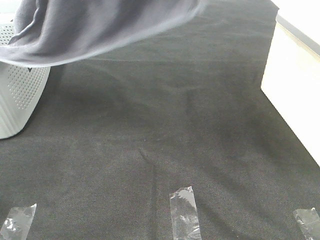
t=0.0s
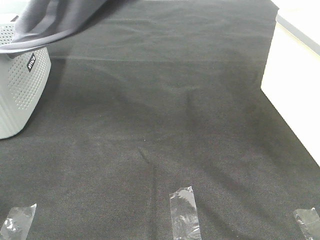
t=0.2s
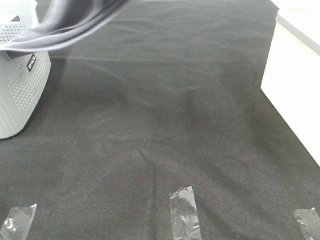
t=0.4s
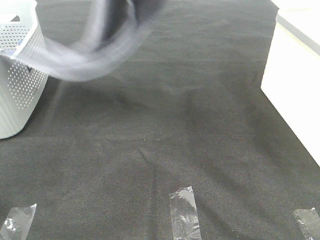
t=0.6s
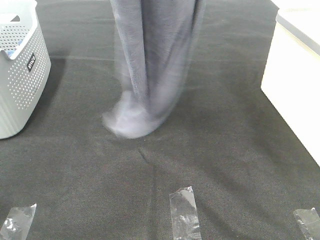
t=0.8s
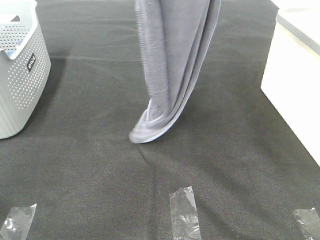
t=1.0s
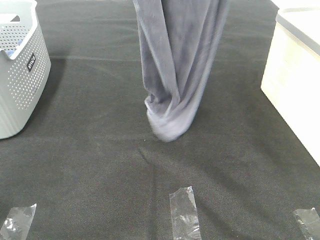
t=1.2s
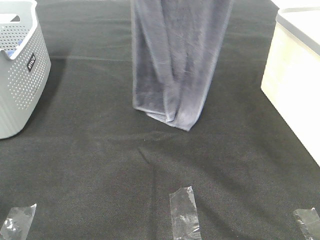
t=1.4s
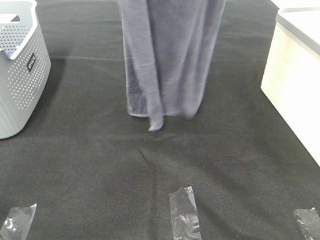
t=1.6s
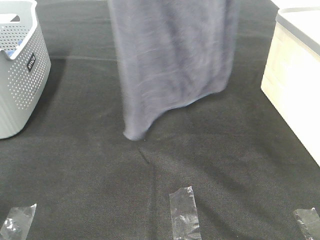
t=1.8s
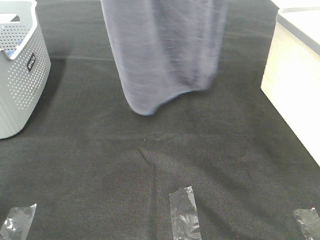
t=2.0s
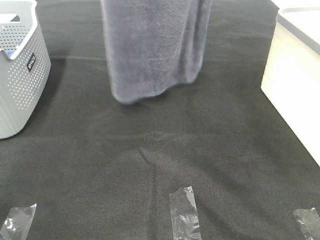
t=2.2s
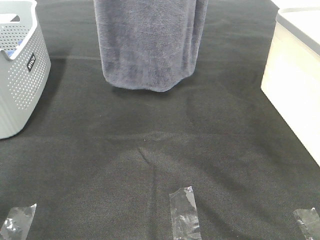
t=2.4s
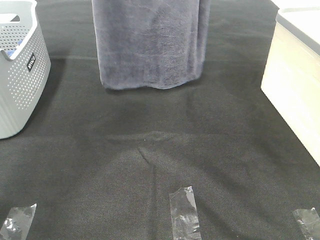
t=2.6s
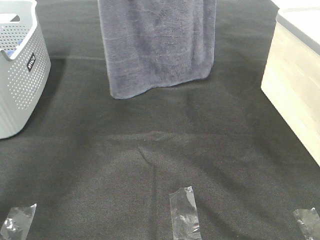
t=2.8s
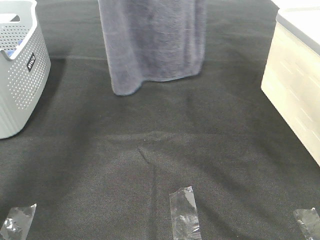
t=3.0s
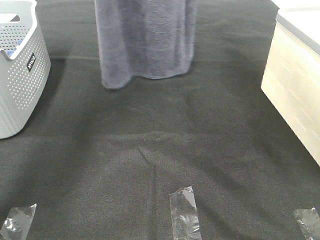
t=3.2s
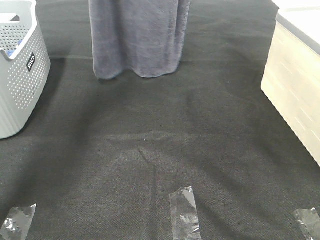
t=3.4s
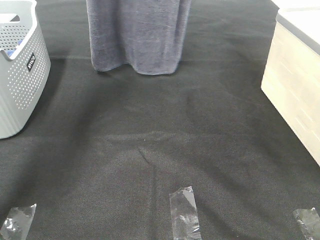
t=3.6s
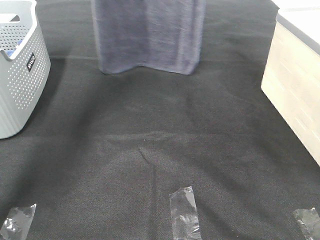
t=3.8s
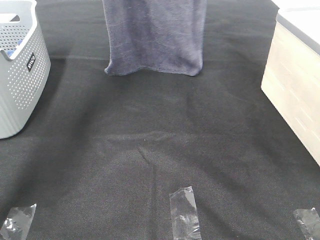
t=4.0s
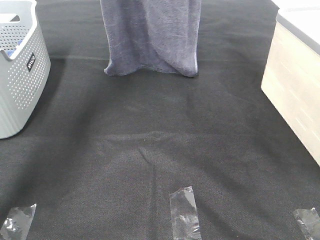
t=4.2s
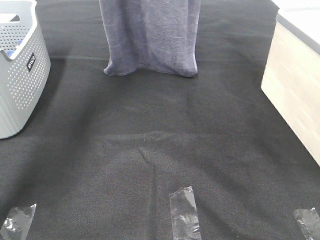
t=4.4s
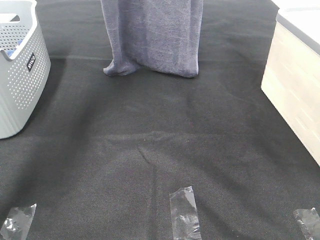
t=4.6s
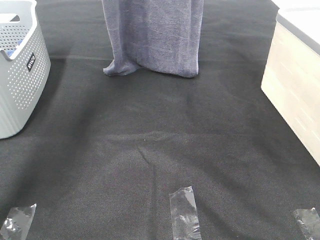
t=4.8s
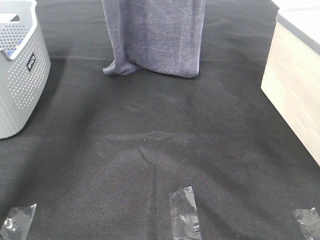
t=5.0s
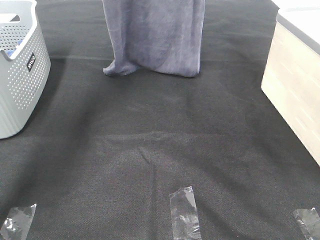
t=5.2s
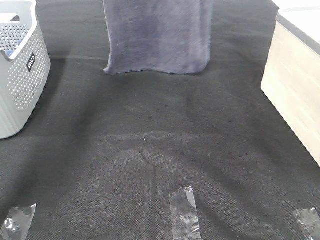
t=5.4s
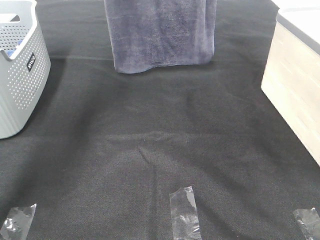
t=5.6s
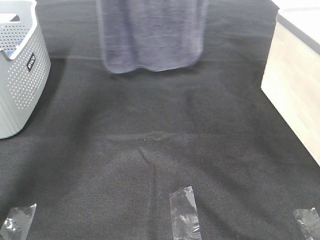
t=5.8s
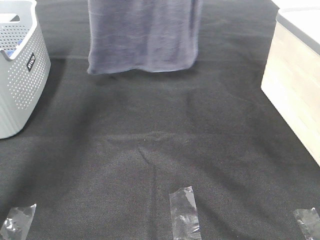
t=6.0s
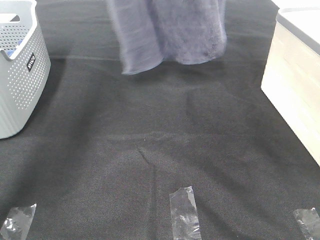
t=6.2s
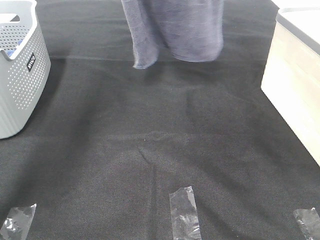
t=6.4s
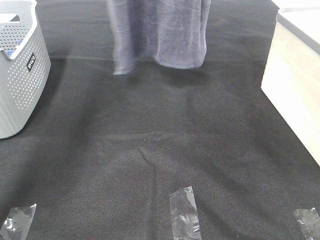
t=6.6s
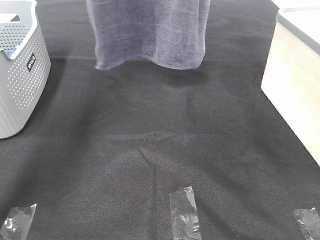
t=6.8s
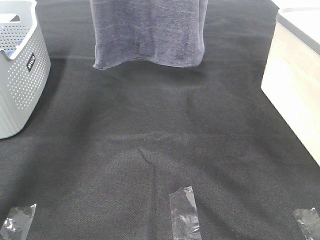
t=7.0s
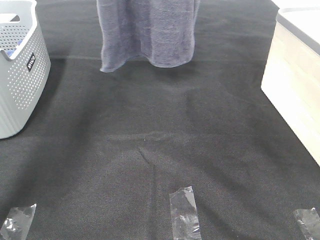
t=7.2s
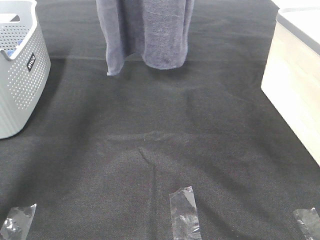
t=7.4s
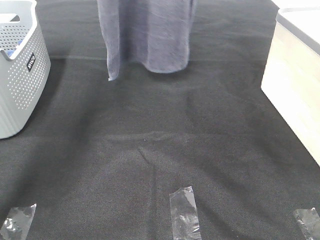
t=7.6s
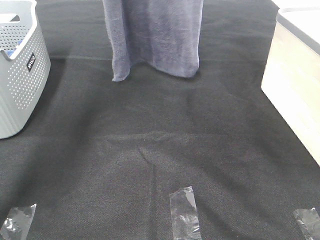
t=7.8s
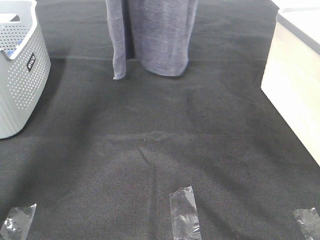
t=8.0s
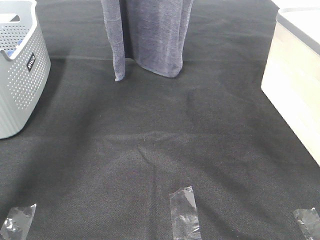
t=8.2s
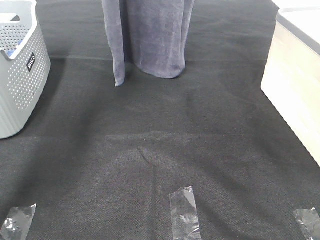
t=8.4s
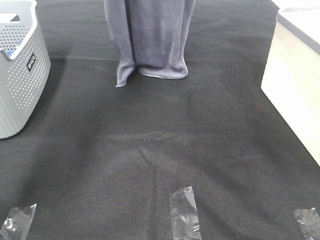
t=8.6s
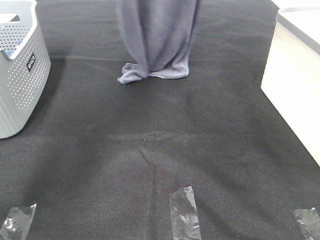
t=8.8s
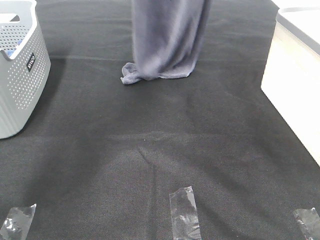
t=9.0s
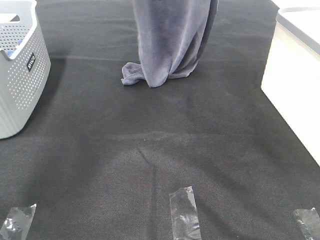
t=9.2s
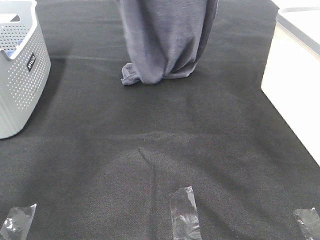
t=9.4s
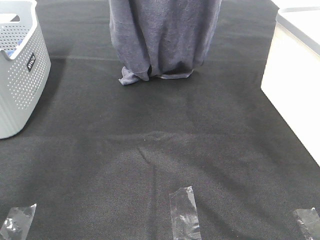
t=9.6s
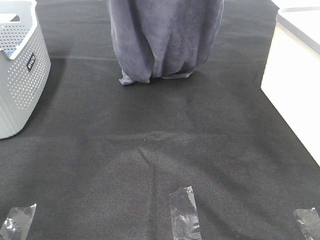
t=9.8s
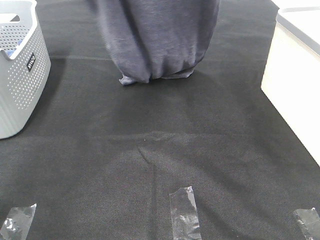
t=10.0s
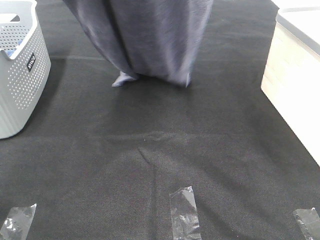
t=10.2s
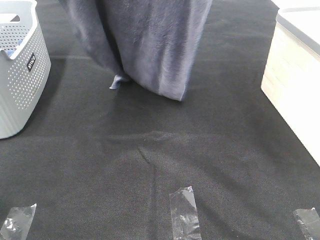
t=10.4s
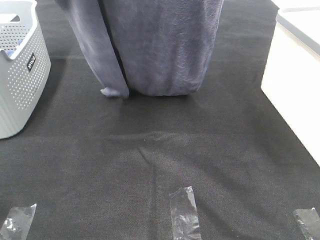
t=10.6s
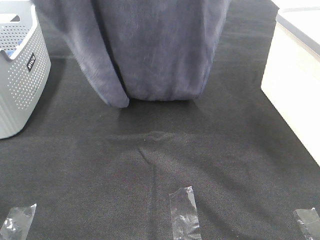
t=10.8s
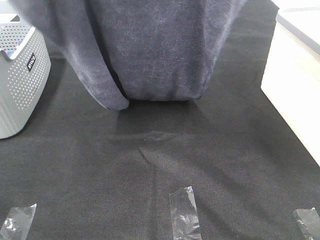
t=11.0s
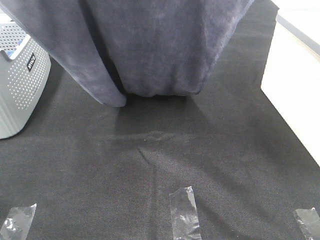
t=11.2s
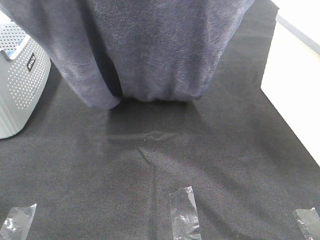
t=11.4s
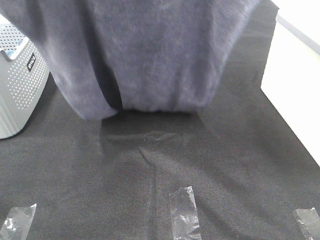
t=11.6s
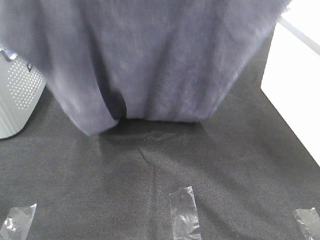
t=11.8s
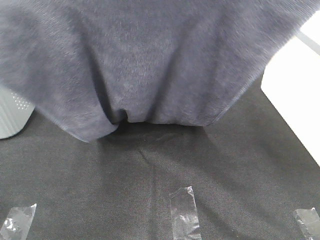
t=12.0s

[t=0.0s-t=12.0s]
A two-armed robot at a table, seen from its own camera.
Task of the whole recording: Remove the towel and place it.
Step, t=0.0s to t=3.2s: Right hand: grab a corner of the grey towel and straighten it.
Step, t=3.4s to t=10.8s: Left hand: spread the grey towel flat on the table.
Step, t=3.4s to t=10.8s: Right hand: spread the grey towel flat on the table.
t=0.0s to t=1.6s: The left gripper shifts some 5 cm forward. Meanwhile the right gripper goes some 15 cm upward.
t=1.6s to t=3.0s: The two grippers go some 15 cm forward and downward.
t=3.0s to t=4.4s: The left gripper heads forward, covering roughly 5 cm.
t=4.4s to t=6.0s: There are only small adjustments of the grippers.
t=6.0s to t=7.6s: The grippers make only small movements.
t=7.6s to t=9.0s: The left gripper moves downward and to the right, some 10 cm.
t=9.0s to t=10.4s: The right gripper shifts roughly 15 cm backward; the left gripper moves backward and upward, some 25 cm.
t=10.4s to t=12.0s: The right gripper goes some 10 cm backward, while the left gripper goes some 15 cm backward and downward.

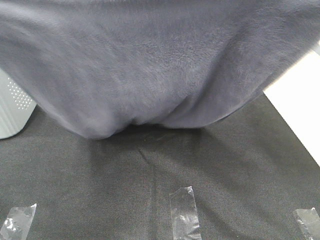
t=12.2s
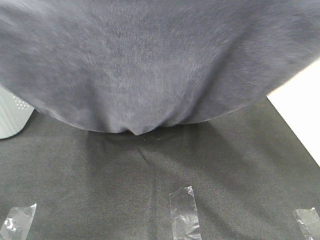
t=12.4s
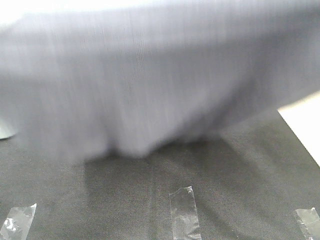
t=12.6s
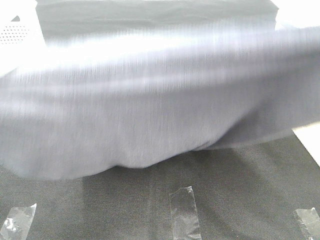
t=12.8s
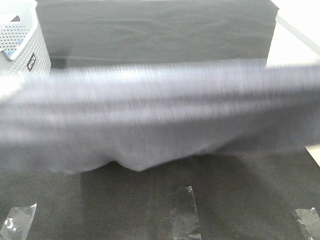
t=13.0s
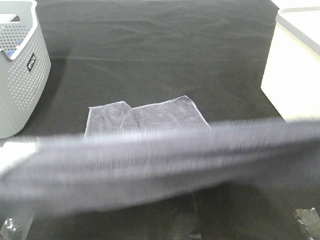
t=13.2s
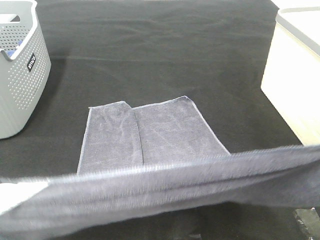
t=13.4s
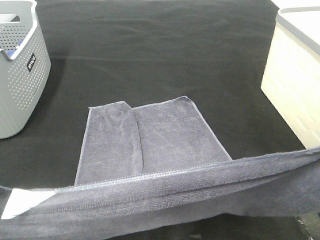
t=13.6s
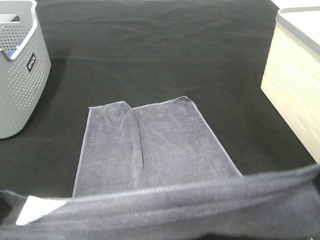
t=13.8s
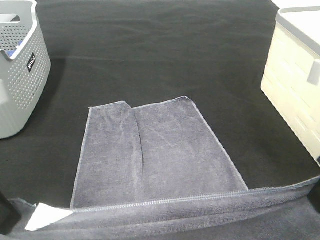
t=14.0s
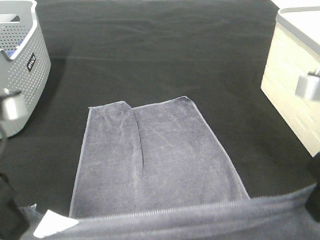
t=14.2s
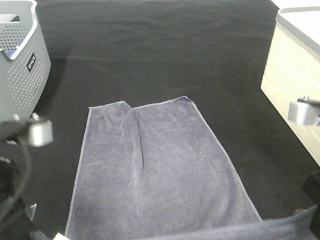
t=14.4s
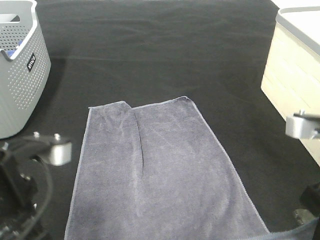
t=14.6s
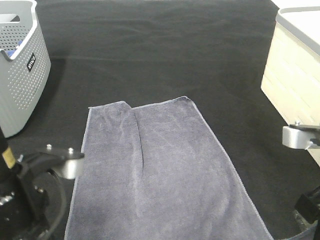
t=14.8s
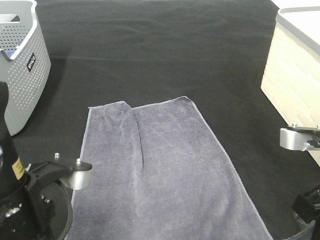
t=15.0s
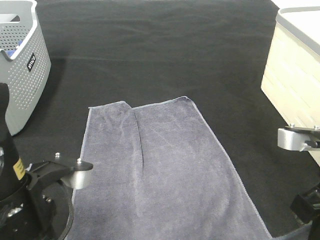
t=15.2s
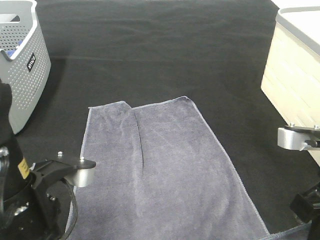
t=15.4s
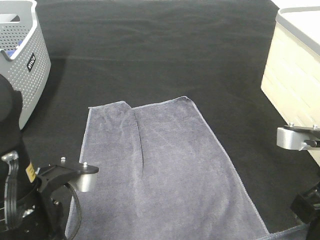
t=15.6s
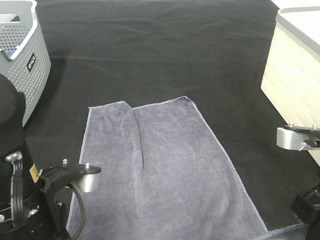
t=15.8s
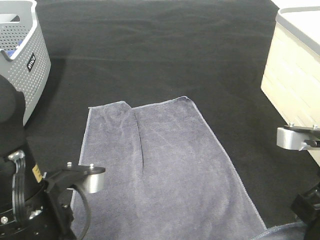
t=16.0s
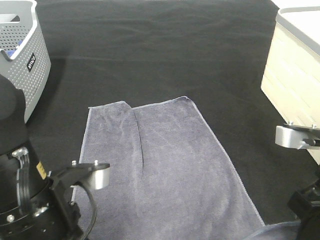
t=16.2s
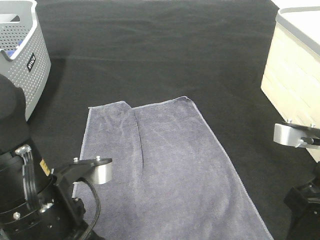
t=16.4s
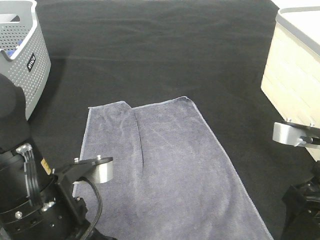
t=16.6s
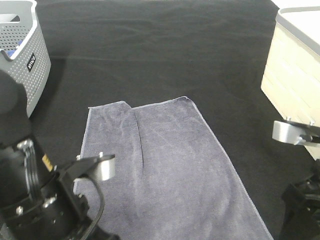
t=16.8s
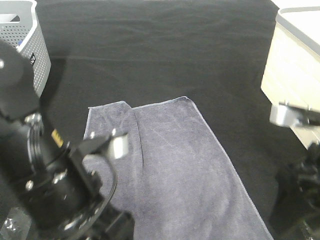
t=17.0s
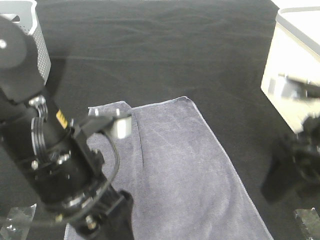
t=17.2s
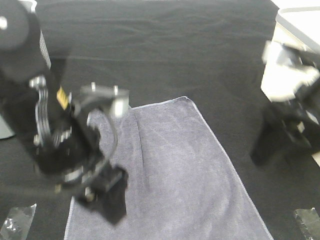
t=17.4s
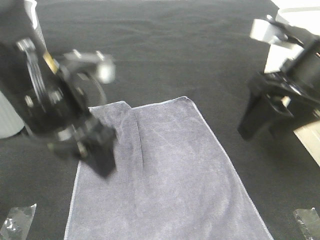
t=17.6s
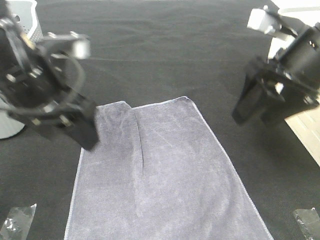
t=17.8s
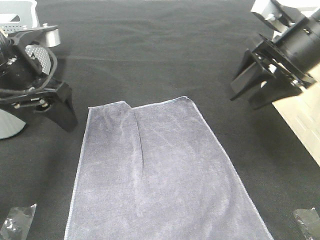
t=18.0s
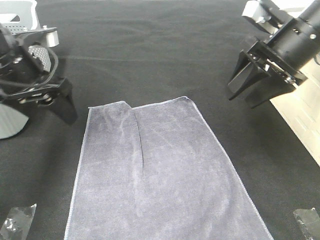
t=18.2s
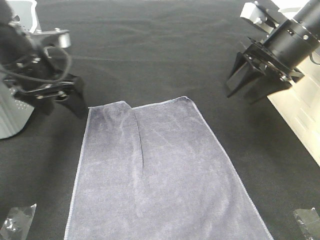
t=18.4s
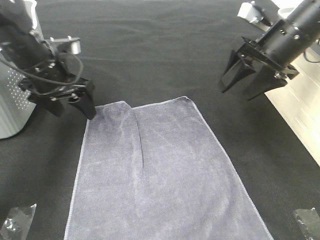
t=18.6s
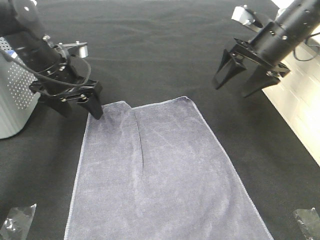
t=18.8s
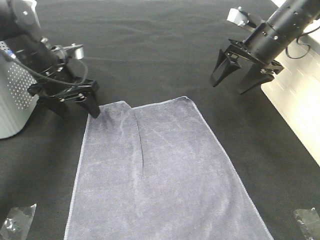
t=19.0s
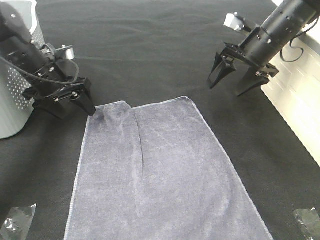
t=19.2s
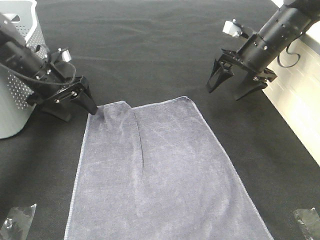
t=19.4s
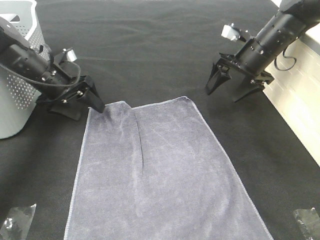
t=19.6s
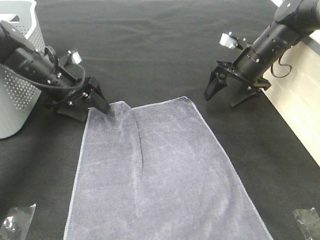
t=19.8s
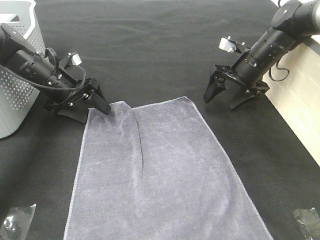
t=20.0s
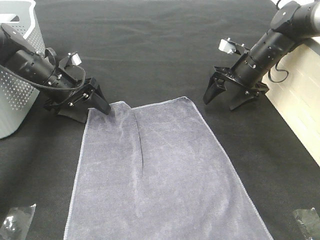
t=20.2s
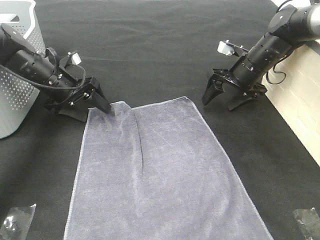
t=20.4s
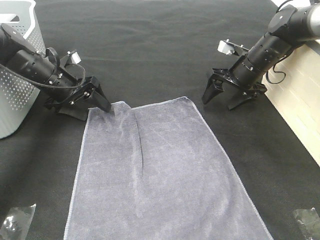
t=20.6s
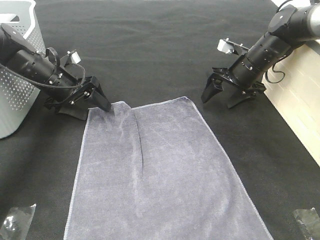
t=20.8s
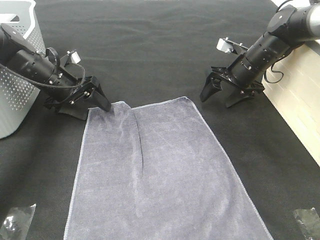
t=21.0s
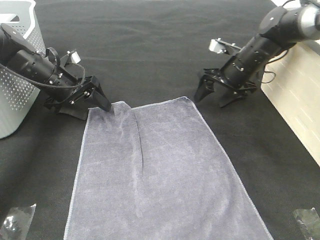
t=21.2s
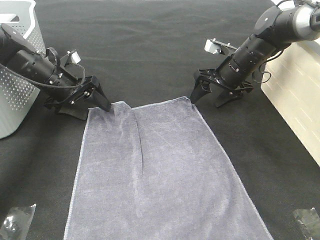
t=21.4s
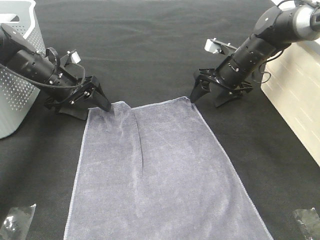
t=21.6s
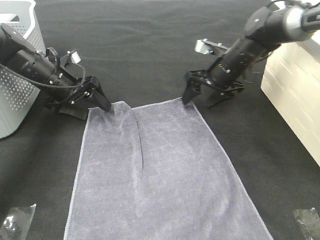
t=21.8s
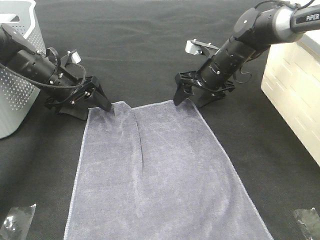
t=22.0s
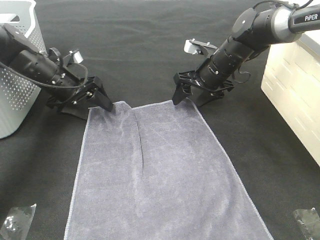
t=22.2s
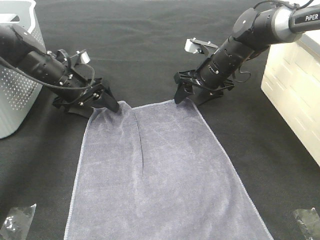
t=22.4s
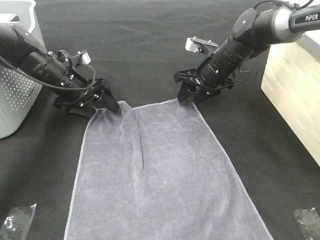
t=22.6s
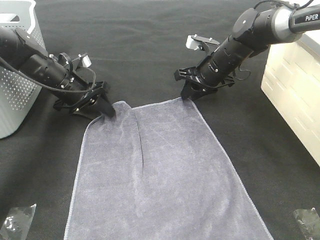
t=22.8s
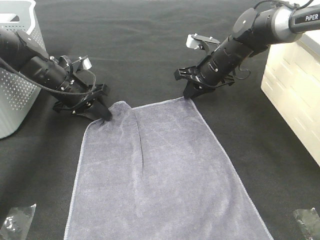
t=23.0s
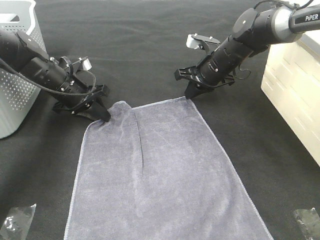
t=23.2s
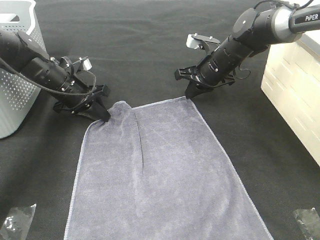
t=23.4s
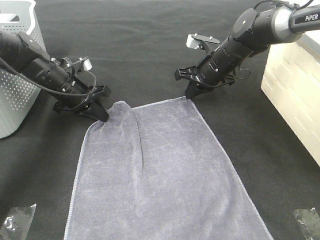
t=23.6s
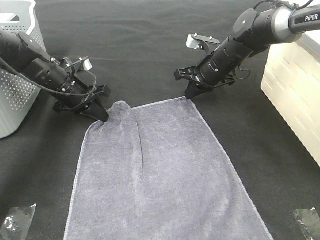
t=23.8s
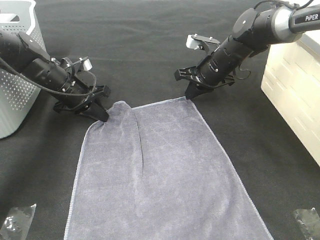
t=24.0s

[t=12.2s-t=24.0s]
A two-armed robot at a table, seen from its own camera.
Task of the whole recording: Remove the towel and place it.
Step, t=12.2s to t=20.8s: Left hand:adjust the gray towel.
Step, t=12.2s to t=20.8s: Right hand:adjust the gray towel.
t=12.2s to t=13.6s: The grippers both shift downward by approximately 15 cm.
t=13.6s to t=15.2s: The right gripper travels downward by some 10 cm, while the left gripper goes about 15 cm downward and to the right.
t=15.2s to t=16.6s: The left gripper opens up; the right gripper opens up.
t=16.6s to t=18.2s: The left gripper moves forward and to the left, some 20 cm; the right gripper travels forward by some 20 cm.
t=18.2s to t=19.6s: The left gripper is displaced downward and forward by about 15 cm. Meanwhile the right gripper goes about 15 cm forward and downward.
t=19.6s to t=21.0s: The grippers move only a little.
t=21.0s to t=22.6s: The right gripper travels to the left by approximately 5 cm, and closes its fingers.
t=22.6s to t=24.0s: The left gripper closes its fingers. Meanwhile the right gripper closes.
